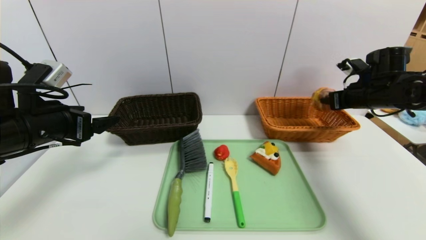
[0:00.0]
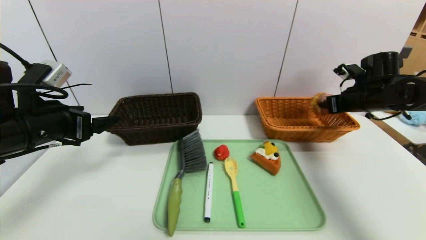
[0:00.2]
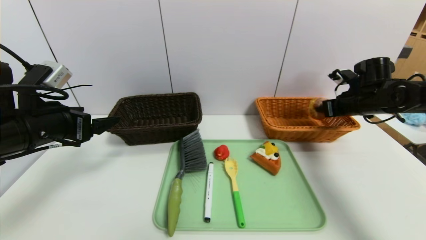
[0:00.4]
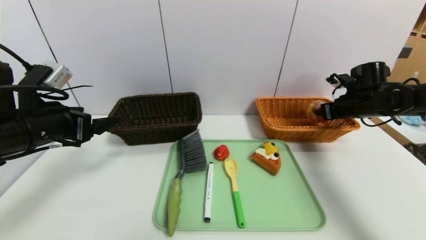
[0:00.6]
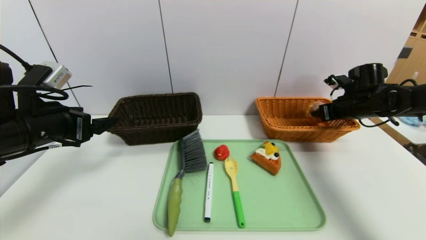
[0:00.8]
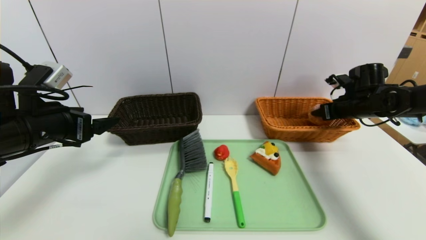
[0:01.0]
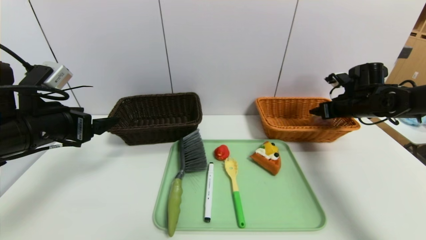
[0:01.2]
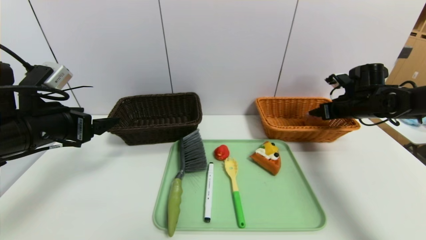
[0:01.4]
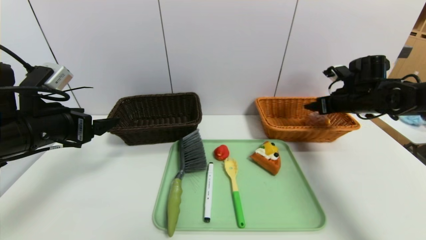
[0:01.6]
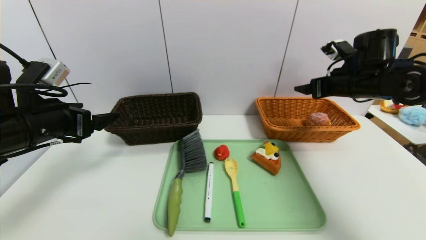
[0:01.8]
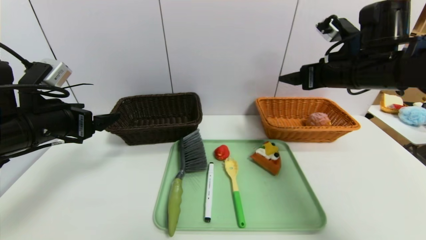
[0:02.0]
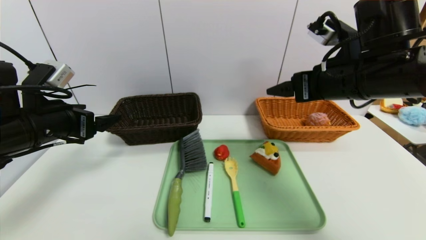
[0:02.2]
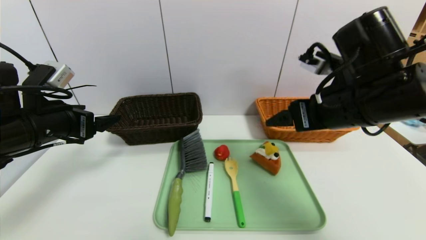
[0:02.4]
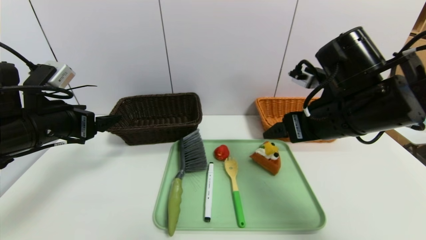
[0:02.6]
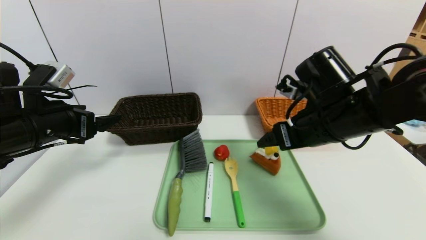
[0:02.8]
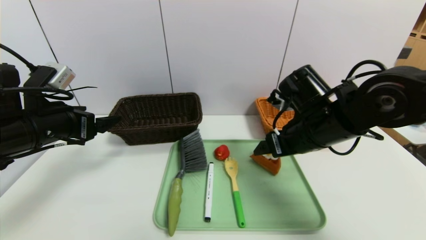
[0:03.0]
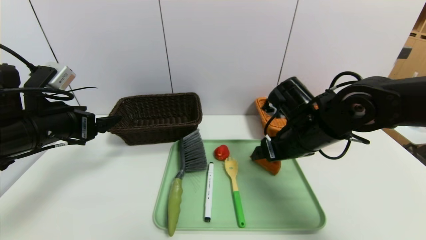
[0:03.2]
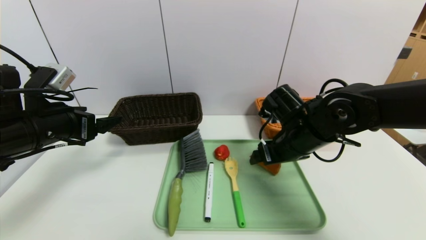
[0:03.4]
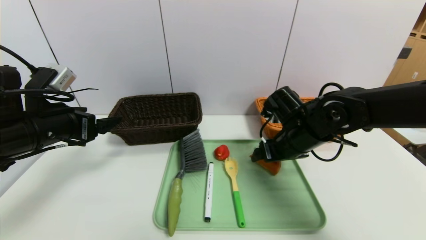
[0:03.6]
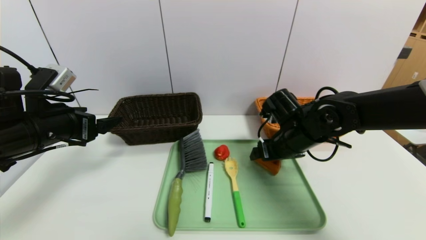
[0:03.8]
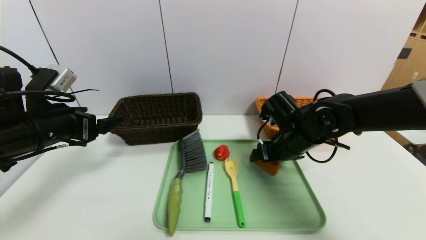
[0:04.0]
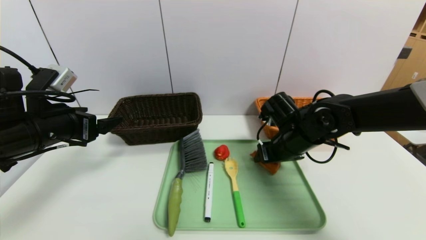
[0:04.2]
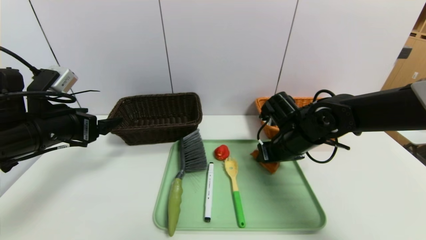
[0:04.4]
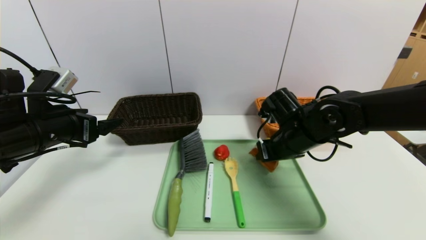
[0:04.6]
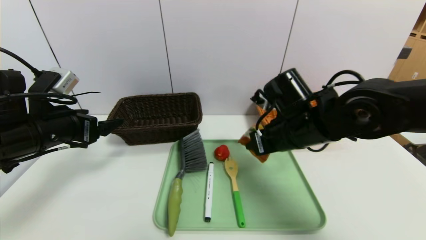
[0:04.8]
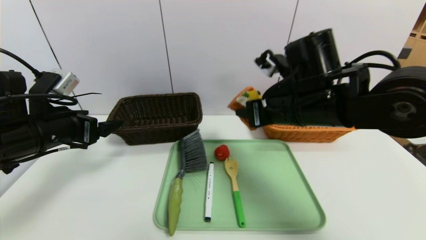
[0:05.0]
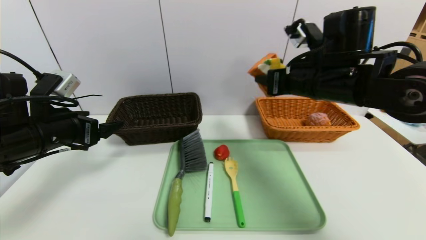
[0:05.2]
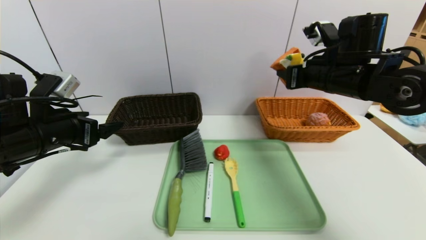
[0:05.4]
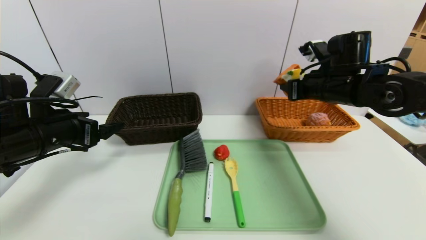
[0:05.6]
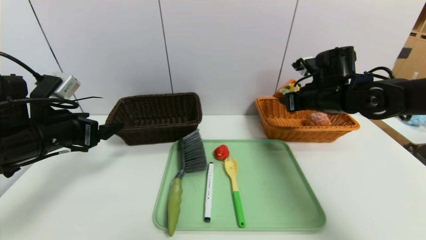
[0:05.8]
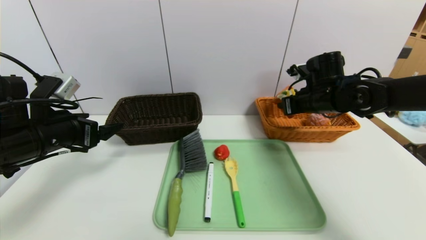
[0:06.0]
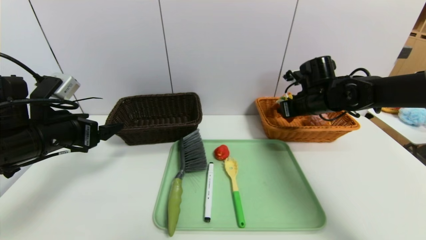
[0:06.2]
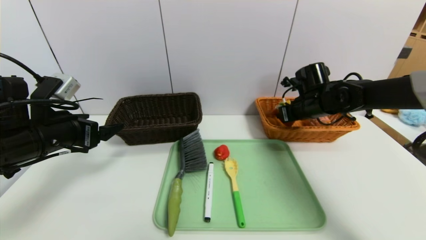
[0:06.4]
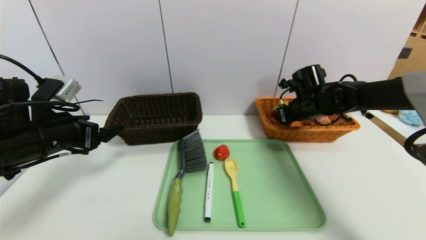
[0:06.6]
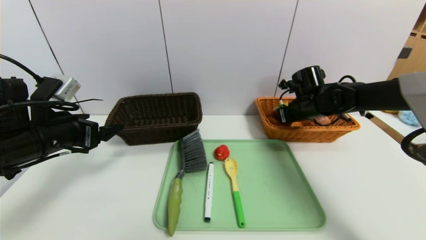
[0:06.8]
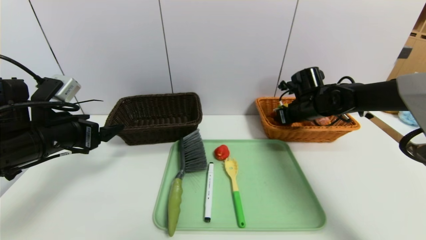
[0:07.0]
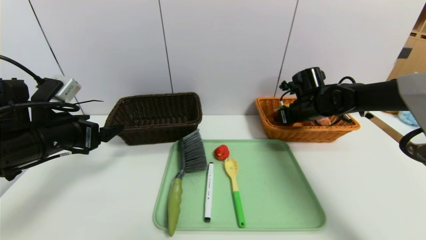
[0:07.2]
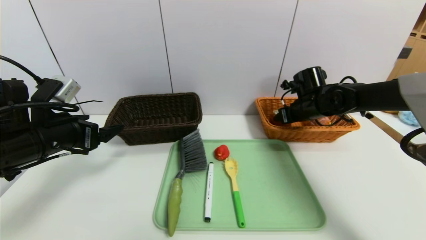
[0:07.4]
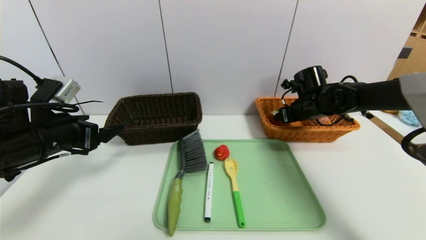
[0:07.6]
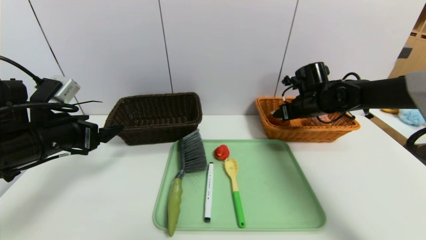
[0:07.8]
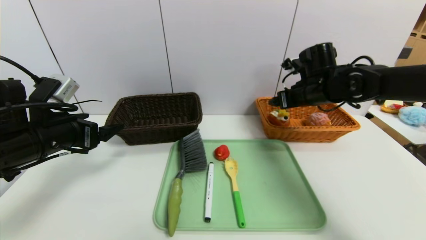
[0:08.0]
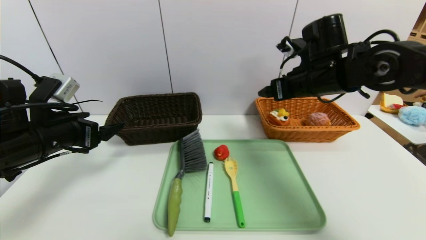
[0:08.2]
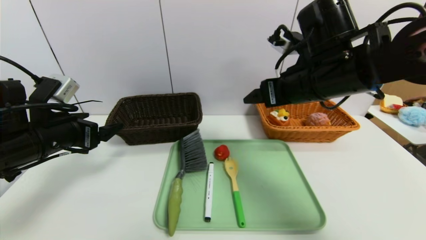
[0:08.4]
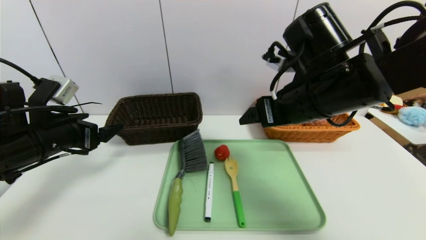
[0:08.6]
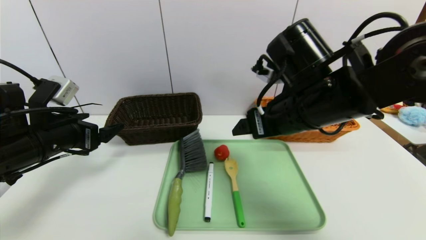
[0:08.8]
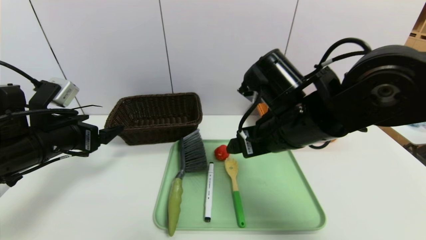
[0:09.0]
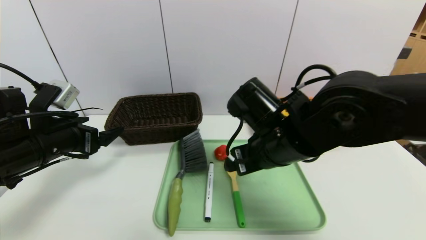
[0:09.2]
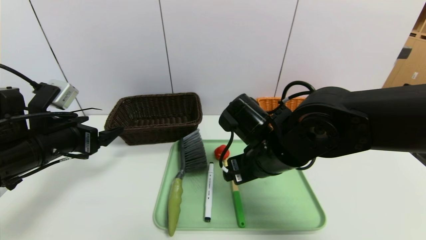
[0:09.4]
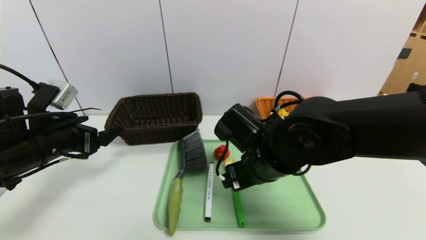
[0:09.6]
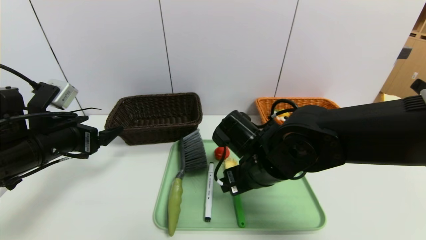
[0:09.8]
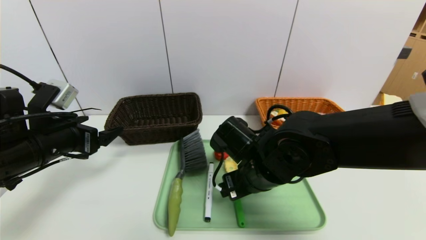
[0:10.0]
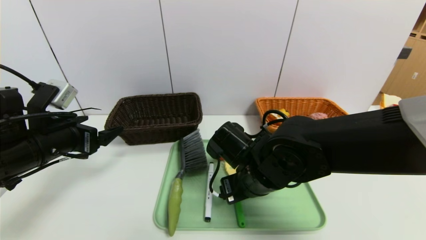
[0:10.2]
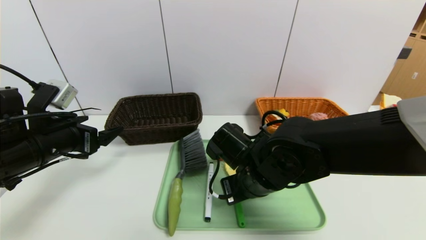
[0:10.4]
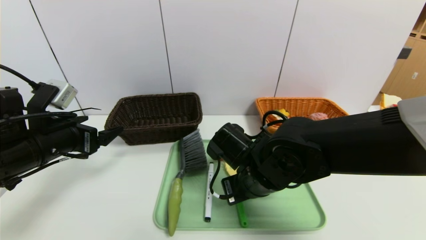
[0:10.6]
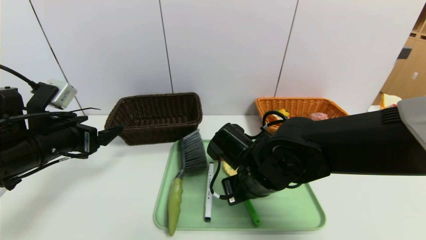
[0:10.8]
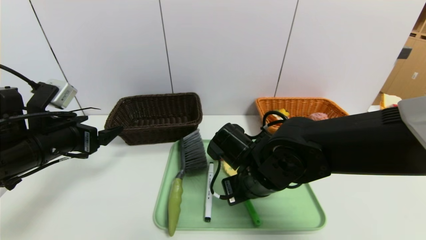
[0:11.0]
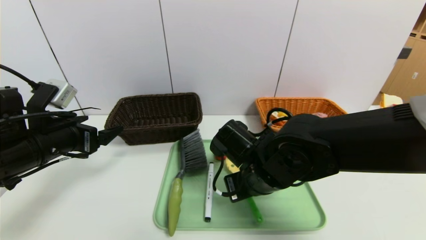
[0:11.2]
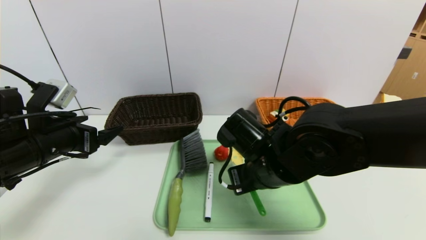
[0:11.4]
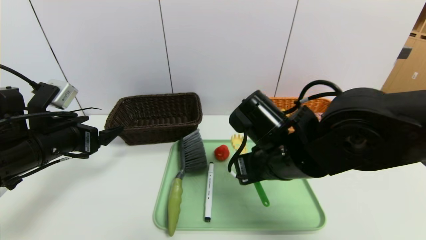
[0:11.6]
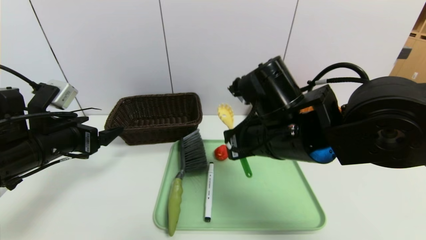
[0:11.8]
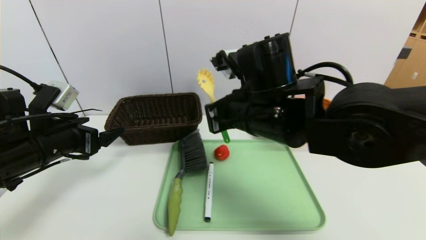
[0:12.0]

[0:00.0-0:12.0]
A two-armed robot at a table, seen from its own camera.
Task of the whole recording: place the food in the right basket with the right gripper, and place the non food items in the left basket with the left gripper.
Step, 0:01.6 to 0:07.6: Grasp the triangle cake and put it in the right basket.
0:00.0 to 0:01.6: The right gripper opens.
0:01.6 to 0:03.0: The right gripper is displaced to the left and backward by approximately 20 cm.
0:03.0 to 0:04.4: The right gripper goes about 5 cm downward, and closes up.
0:04.4 to 0:06.0: The right gripper shifts about 10 cm to the right, forward and upward.
0:06.0 to 0:07.6: The right gripper shifts by some 5 cm, and opens its fingers.
0:07.6 to 0:09.0: The right gripper moves backward and to the left, approximately 25 cm.
0:09.0 to 0:10.4: The right gripper goes approximately 10 cm downward, and closes up.
0:10.4 to 0:12.0: The right gripper shifts approximately 10 cm upward, and closes.

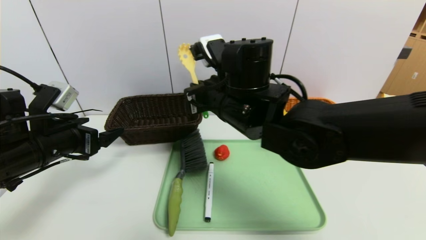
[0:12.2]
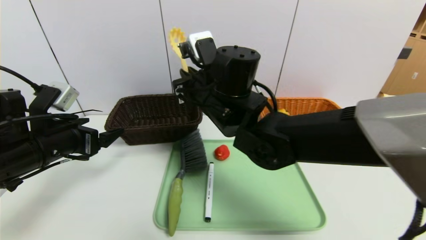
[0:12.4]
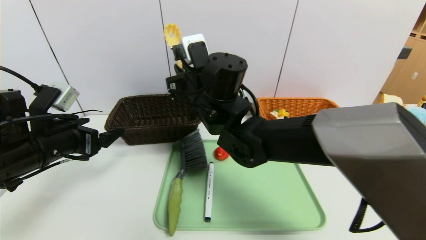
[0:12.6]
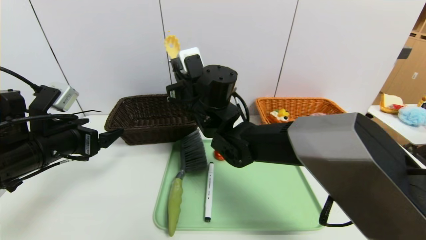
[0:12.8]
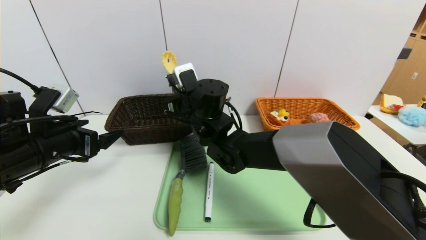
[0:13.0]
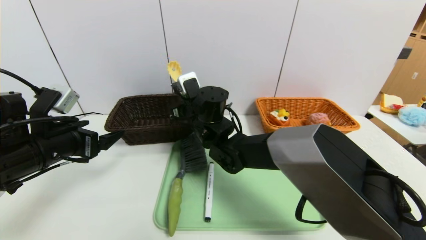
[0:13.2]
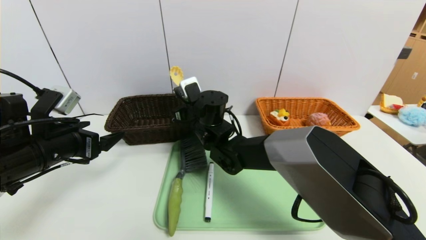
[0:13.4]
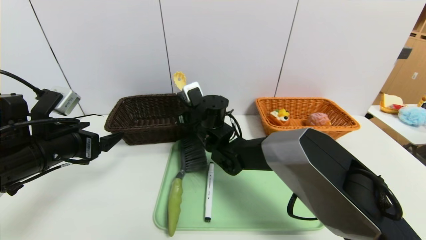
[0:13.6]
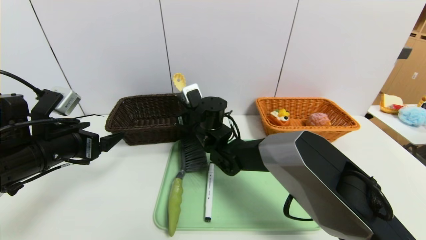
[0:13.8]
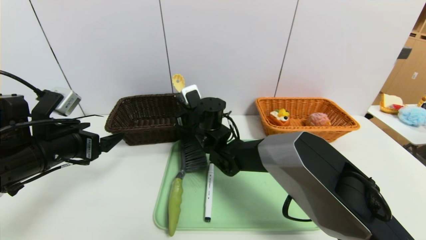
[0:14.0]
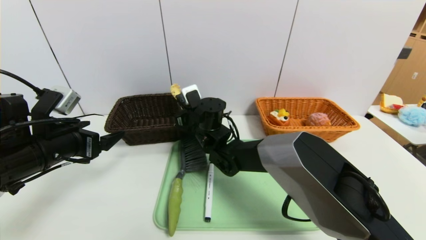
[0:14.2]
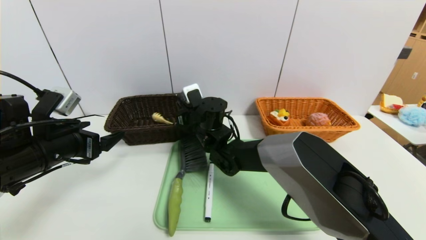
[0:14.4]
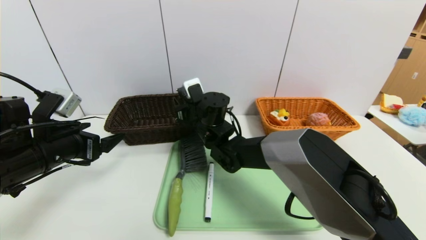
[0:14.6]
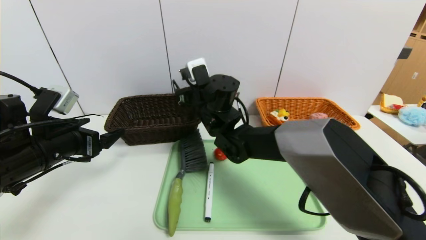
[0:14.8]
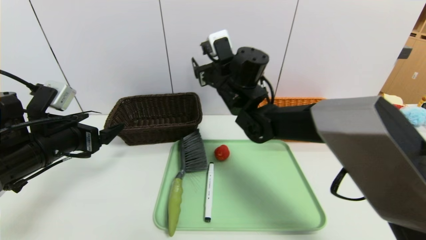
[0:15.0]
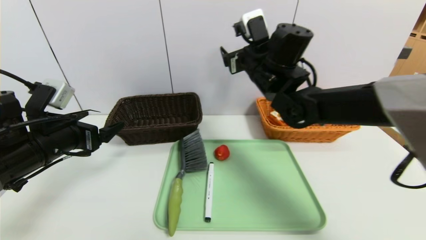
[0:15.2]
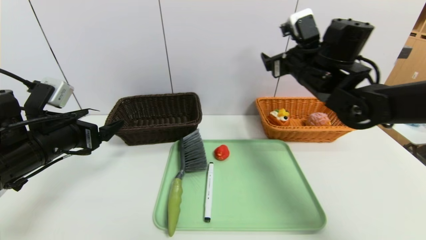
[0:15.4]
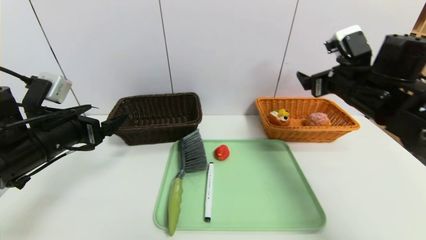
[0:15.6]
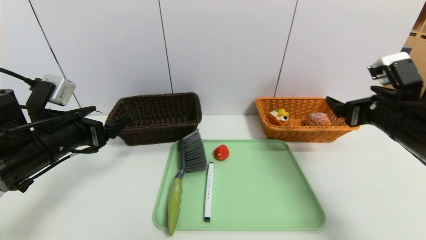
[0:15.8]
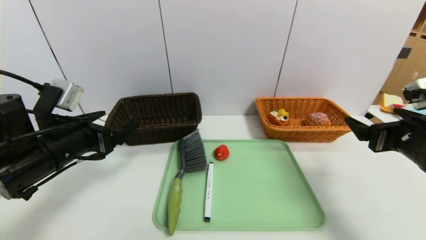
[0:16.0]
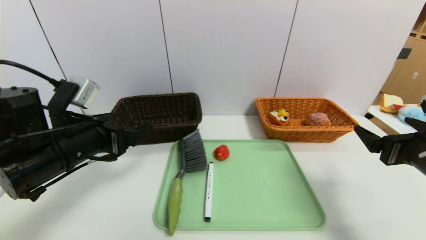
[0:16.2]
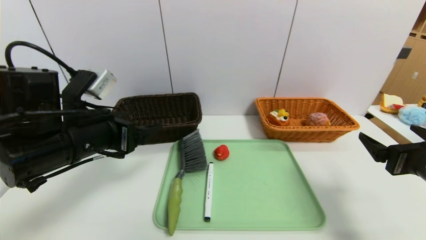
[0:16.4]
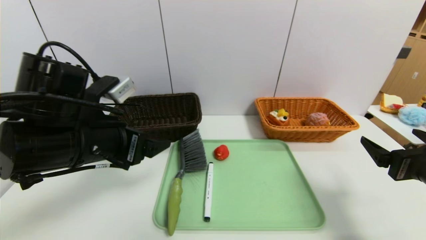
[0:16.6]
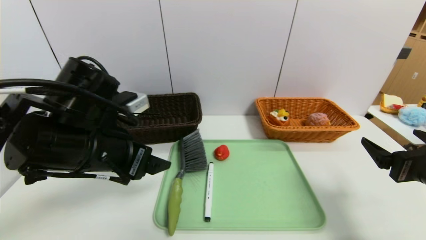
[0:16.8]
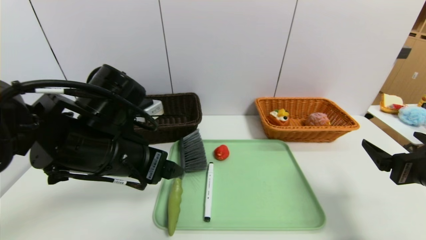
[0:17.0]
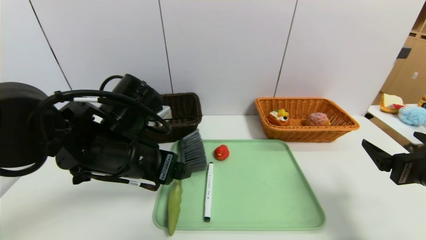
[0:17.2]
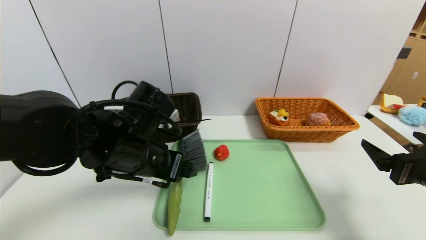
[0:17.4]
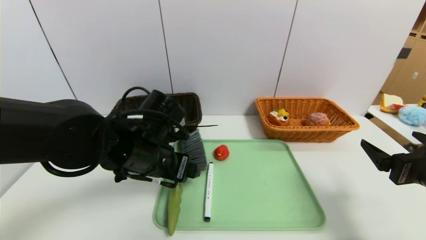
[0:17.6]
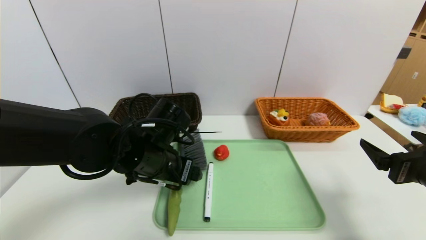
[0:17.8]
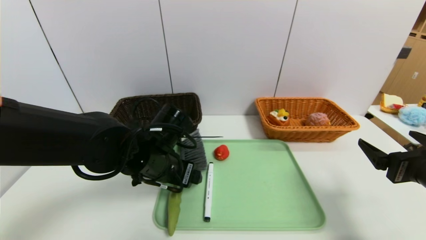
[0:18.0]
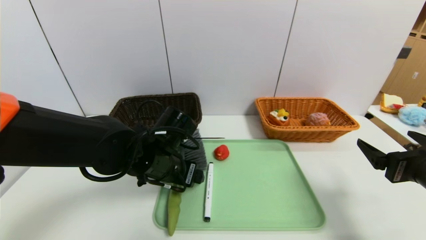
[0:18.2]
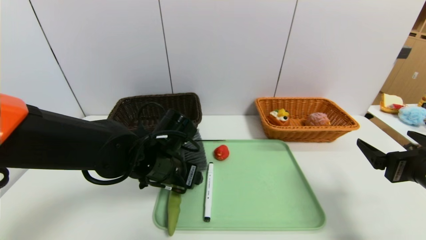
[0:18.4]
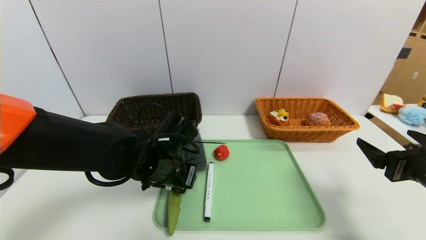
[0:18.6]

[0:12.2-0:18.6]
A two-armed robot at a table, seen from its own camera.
Task of the whole recording: place the food in the right basket with the right gripper, and place the non food items in the left basket with the left gripper.
0:12.2 to 0:13.8: The right gripper shifts approximately 15 cm downward, forward and to the left.
0:13.8 to 0:15.4: The right gripper goes roughly 25 cm to the right and upward, and opens.
0:15.4 to 0:17.0: The right gripper travels backward, to the right and downward by roughly 25 cm; the left gripper heads to the right, covering roughly 15 cm.
0:17.0 to 0:18.6: The left gripper heads downward and forward, covering roughly 10 cm, and closes.
